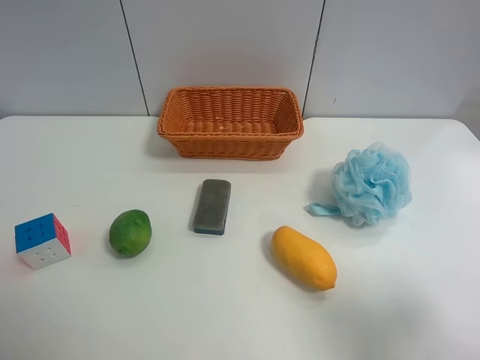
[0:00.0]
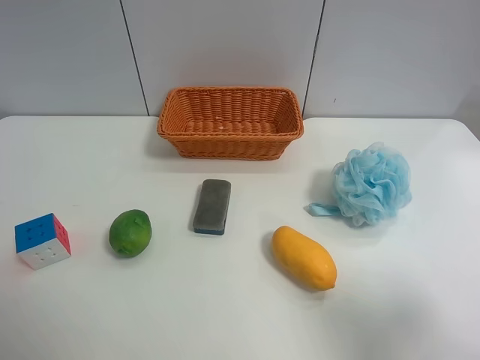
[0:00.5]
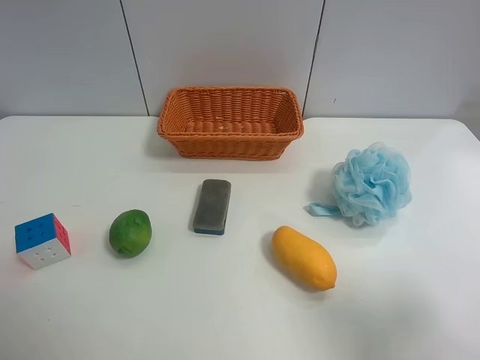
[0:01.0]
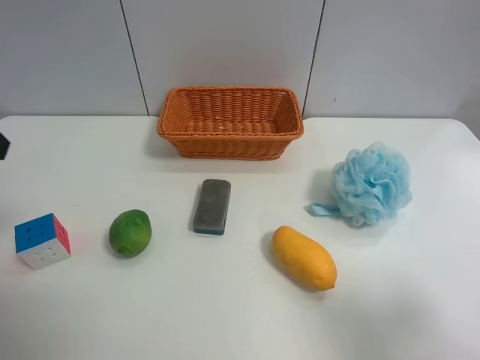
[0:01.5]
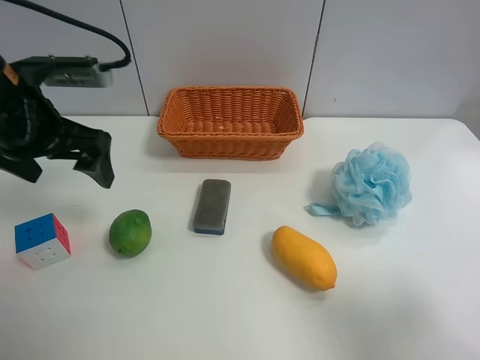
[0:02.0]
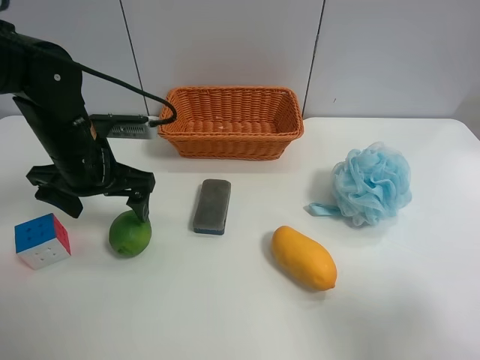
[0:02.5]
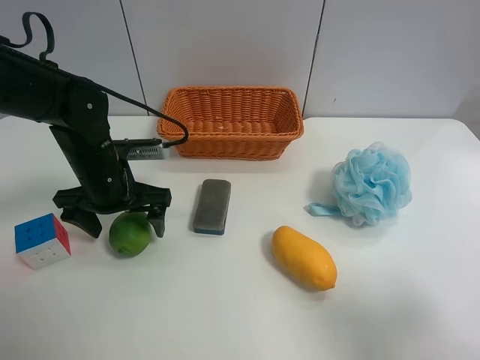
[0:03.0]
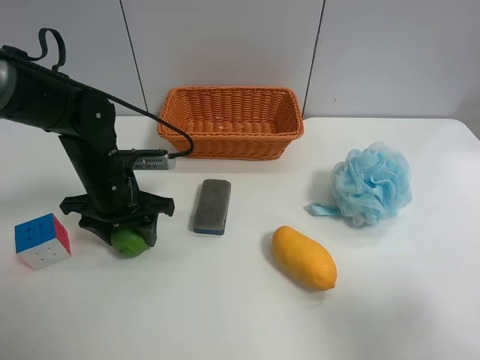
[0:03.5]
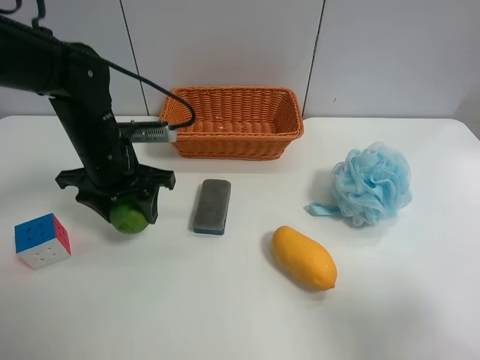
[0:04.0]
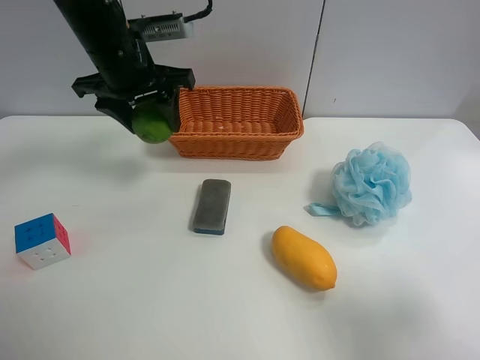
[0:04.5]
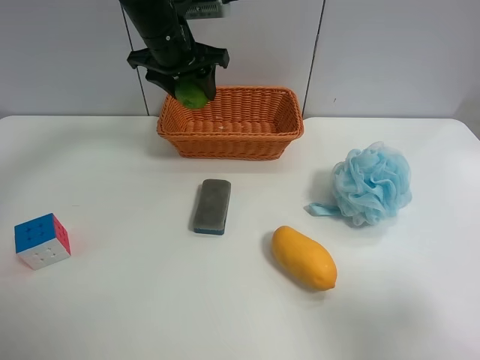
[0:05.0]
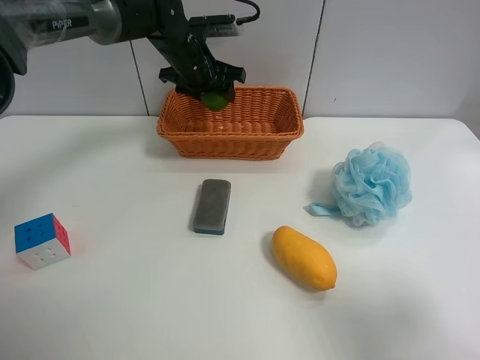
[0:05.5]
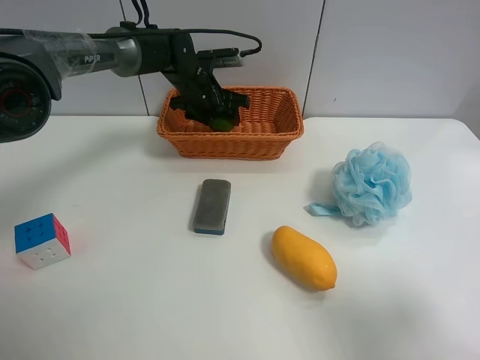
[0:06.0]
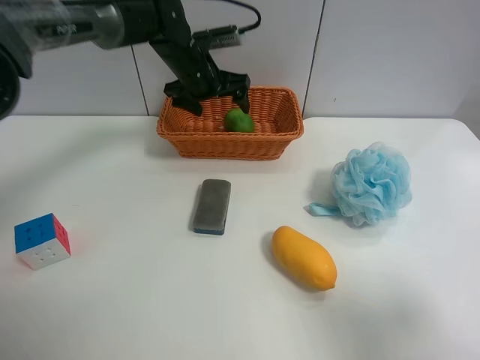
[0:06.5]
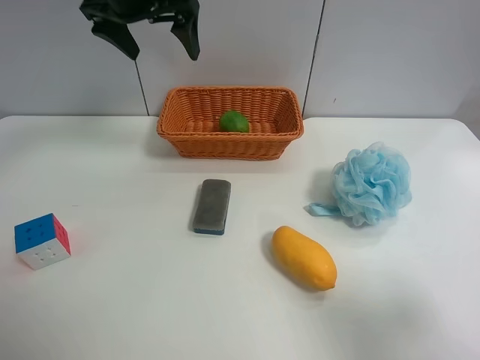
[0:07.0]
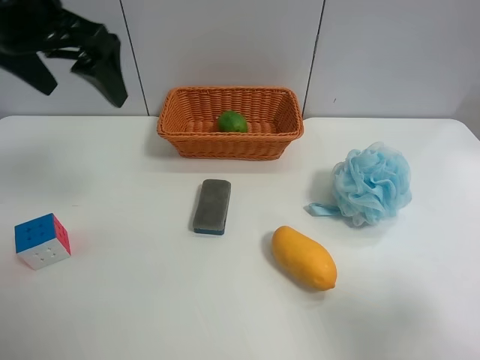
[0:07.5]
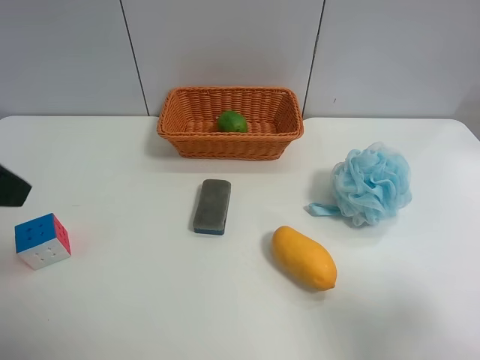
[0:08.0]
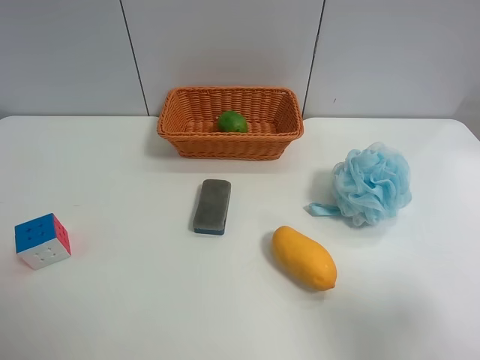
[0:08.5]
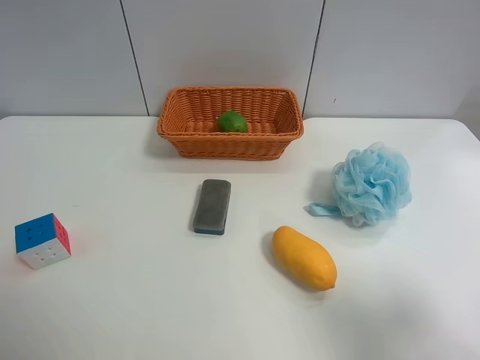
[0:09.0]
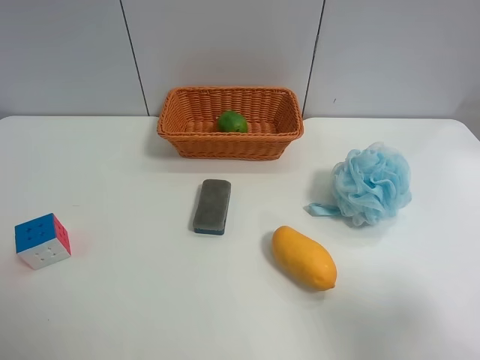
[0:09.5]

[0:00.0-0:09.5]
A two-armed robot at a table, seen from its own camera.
Task of the whole recording: use the left gripper to grab items from the table and place them in the basket.
Step, 0:00.0 to 0:03.5: Grasp the apple rubber puff with the left gripper.
Step, 0:04.0 to 0:06.5: Place the apple rubber puff into the basket with the left gripper.
0:00.0 to 0:02.0: The left gripper shifts some 25 cm forward.
0:02.0 to 0:04.0: The left gripper goes about 10 cm downward and to the right, and closes up.
0:04.0 to 0:05.5: The left gripper moves forward and to the right, roughly 20 cm.
0:05.5 to 0:07.5: The left gripper goes approximately 25 cm backward, upward and to the left, and opens.
0:07.5 to 0:09.5: The left gripper heads backward, covering approximately 30 cm.

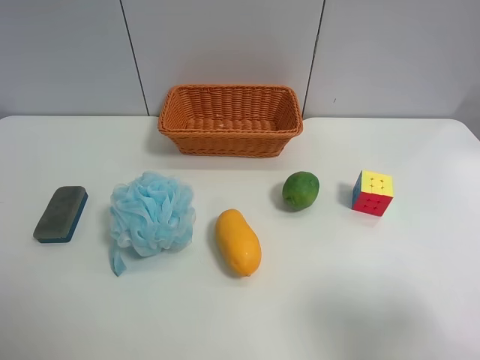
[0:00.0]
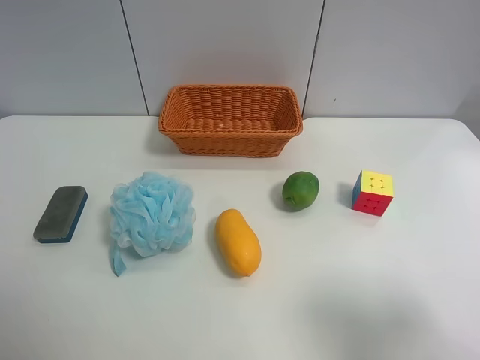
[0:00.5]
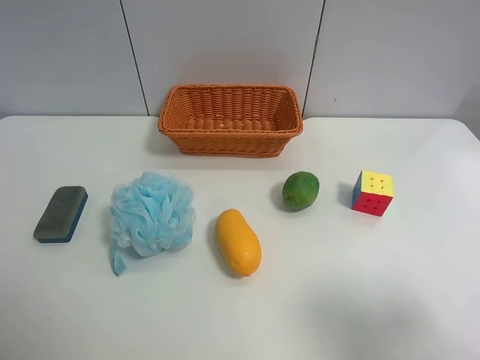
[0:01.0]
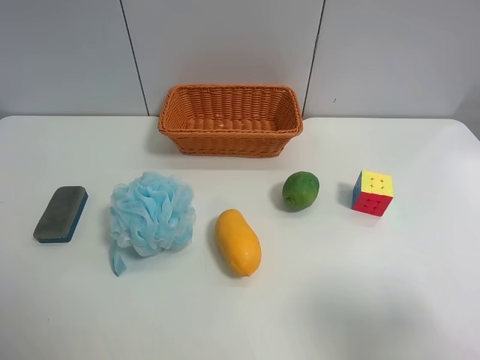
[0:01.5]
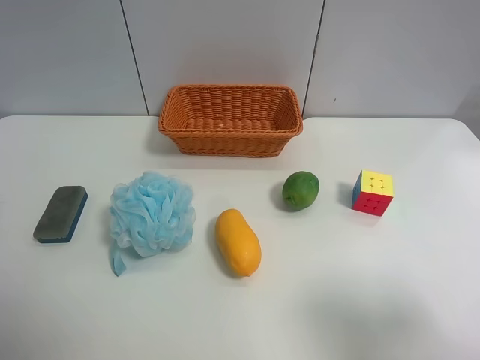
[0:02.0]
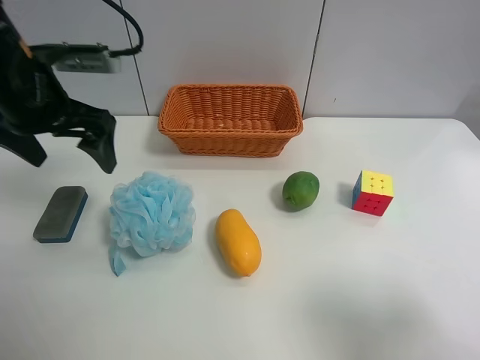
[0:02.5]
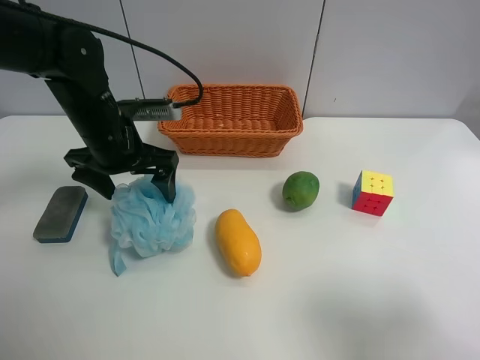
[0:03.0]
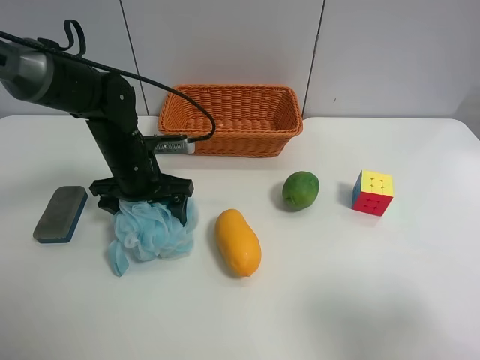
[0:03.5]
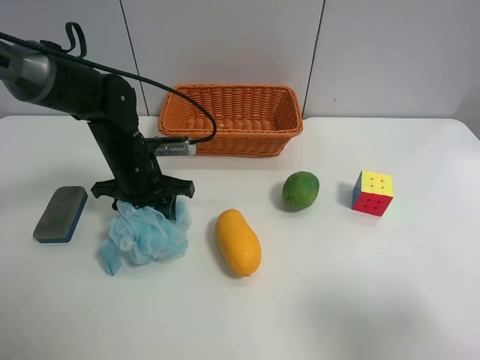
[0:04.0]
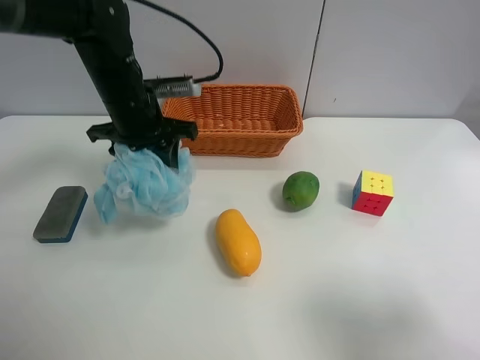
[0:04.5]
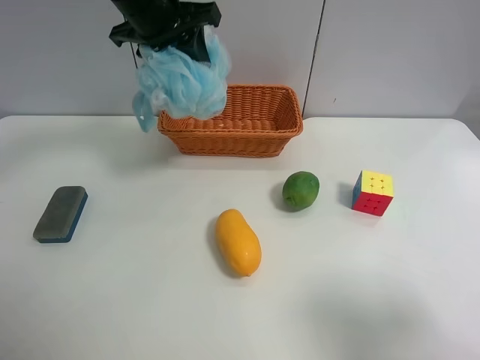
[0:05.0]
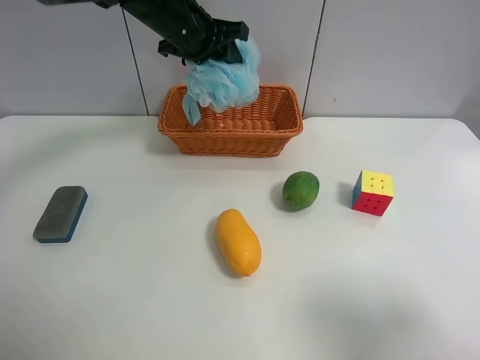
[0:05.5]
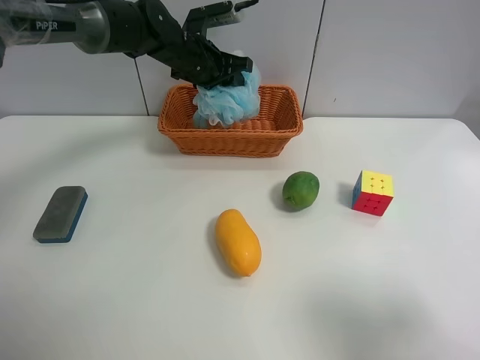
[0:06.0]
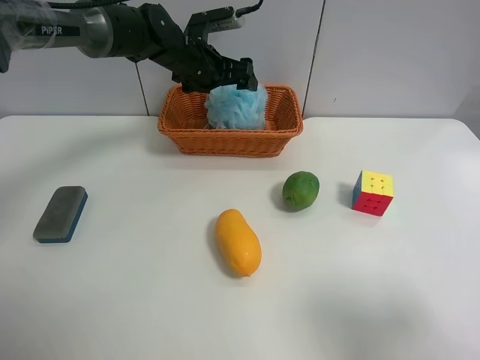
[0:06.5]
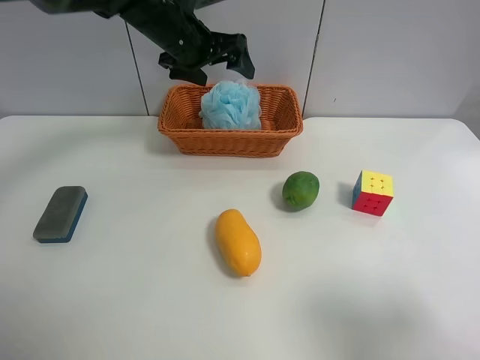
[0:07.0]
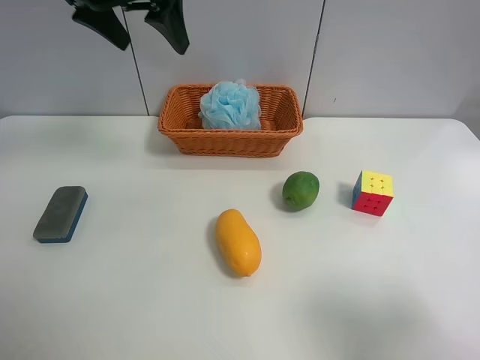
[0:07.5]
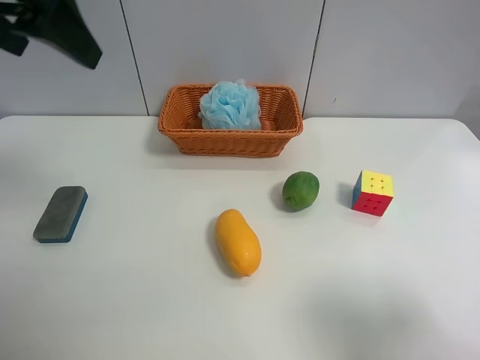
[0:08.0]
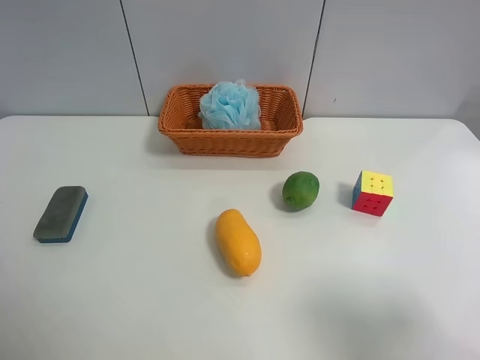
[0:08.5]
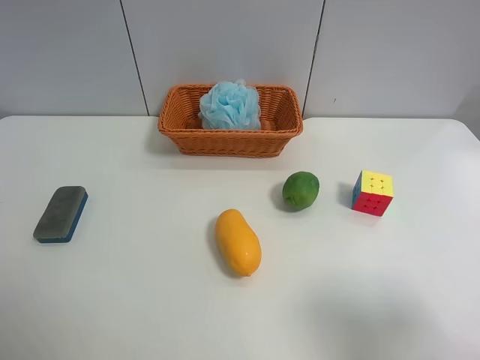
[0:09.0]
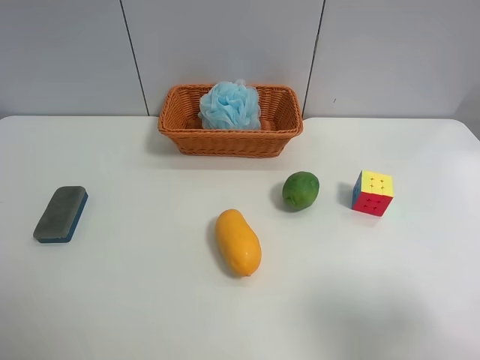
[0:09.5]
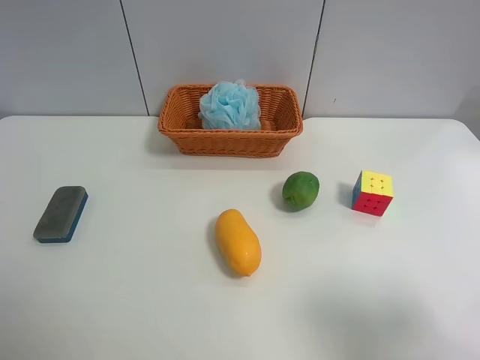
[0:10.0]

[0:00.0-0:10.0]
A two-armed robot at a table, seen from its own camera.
Task of the whole recording: use the left gripper to grab items from the table and place them in the basket.
Step, 0:00.0 to 0:03.5: Grasp the Shower puff with the left gripper.
Step, 0:04.0 to 0:06.5: Place the Shower puff into the basket with the left gripper.
0:02.0 to 0:04.0: The left gripper is displaced downward, forward and to the right by approximately 35 cm, and closes up.
0:04.0 to 0:06.0: The left gripper is displaced forward, upward and to the right by roughly 20 cm.
0:06.0 to 0:08.0: The left gripper shifts about 35 cm backward, upward and to the left, and opens.
0:08.0 to 0:10.0: The left gripper heads backward and downward, covering approximately 25 cm.
